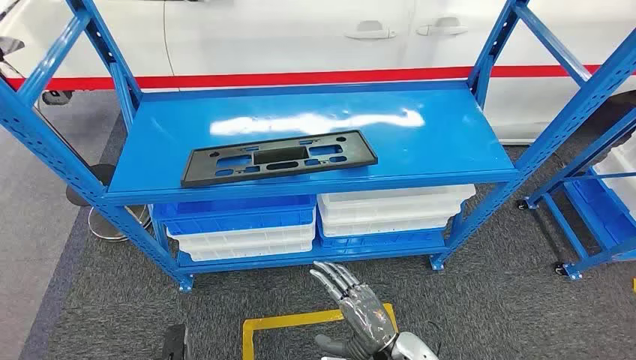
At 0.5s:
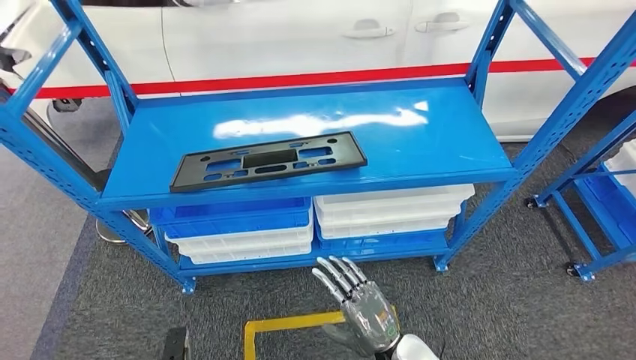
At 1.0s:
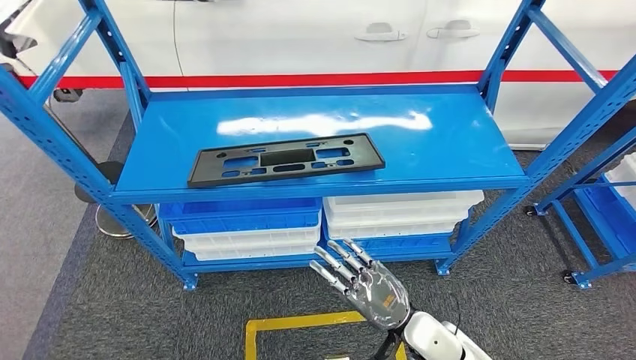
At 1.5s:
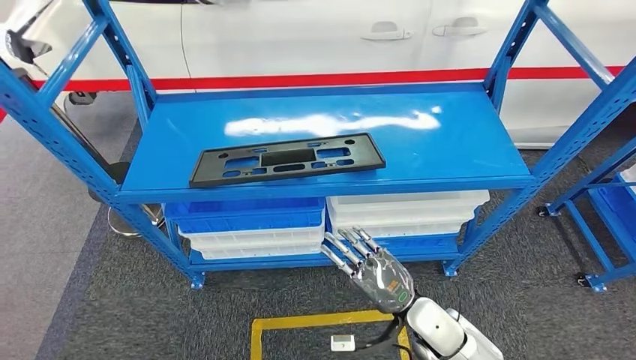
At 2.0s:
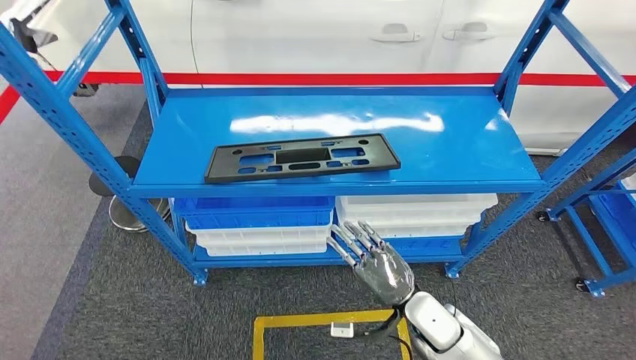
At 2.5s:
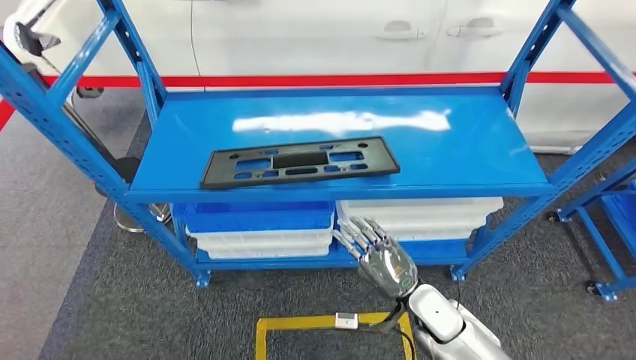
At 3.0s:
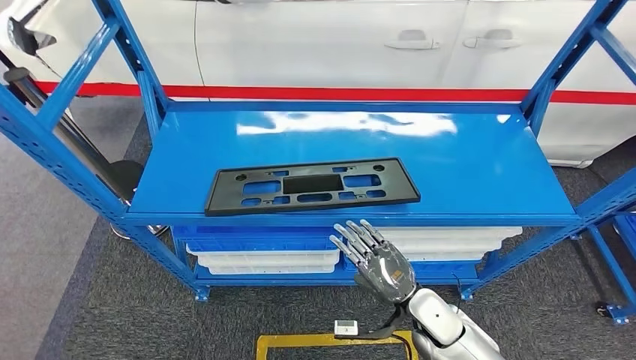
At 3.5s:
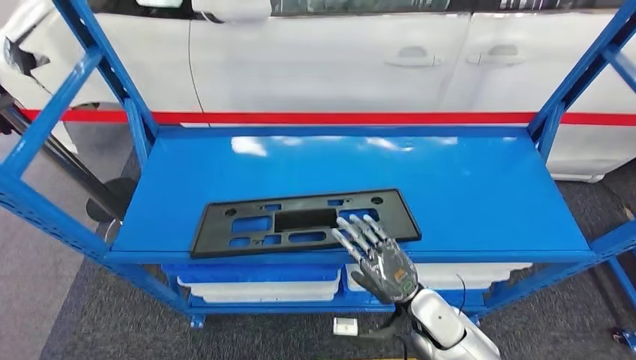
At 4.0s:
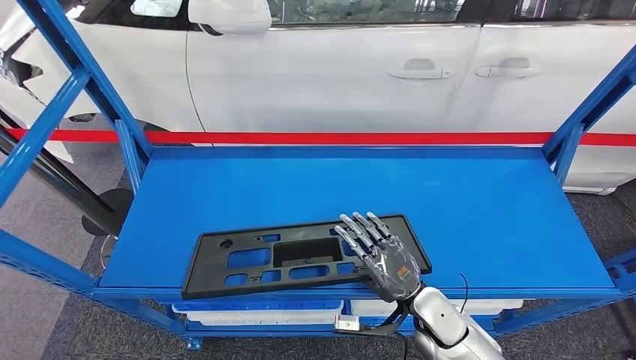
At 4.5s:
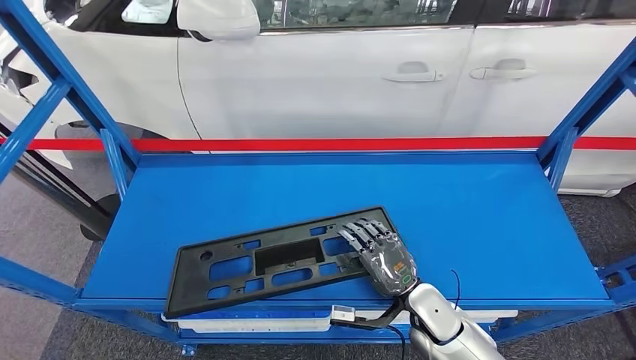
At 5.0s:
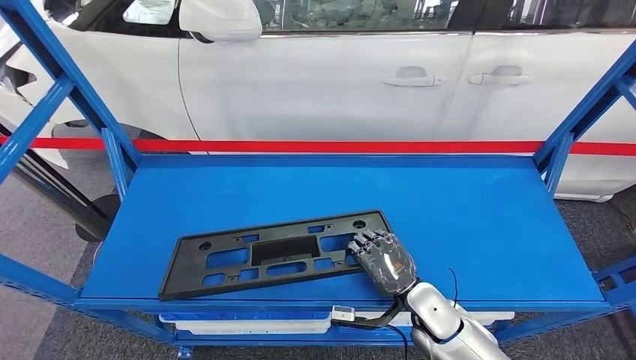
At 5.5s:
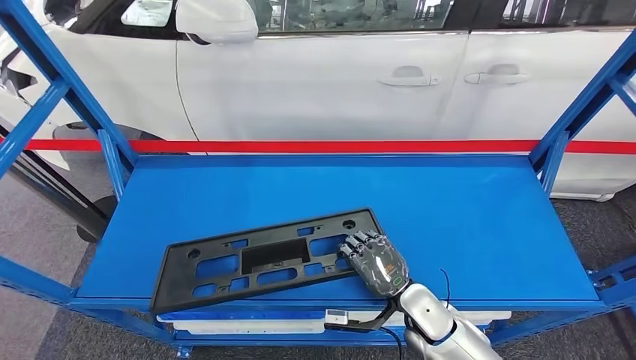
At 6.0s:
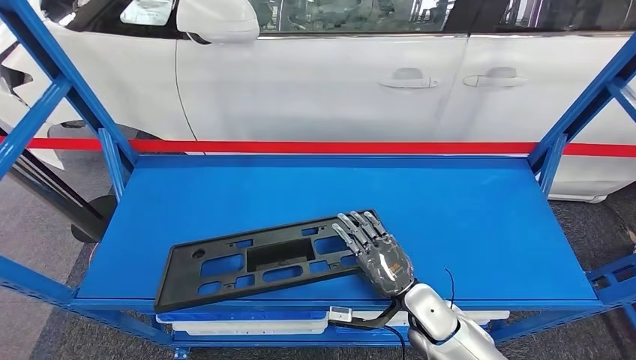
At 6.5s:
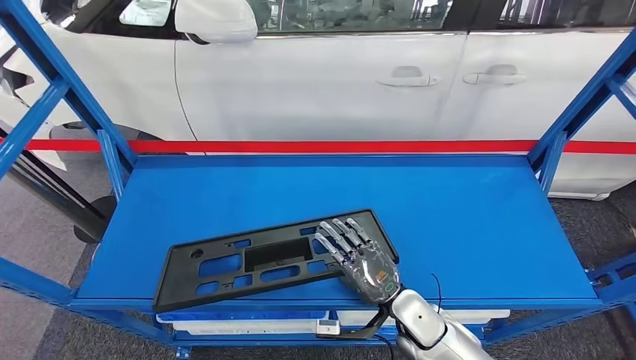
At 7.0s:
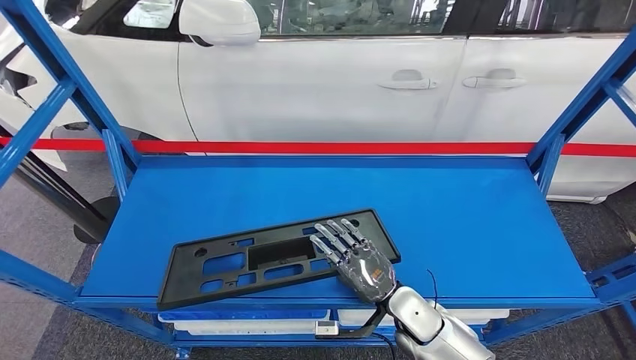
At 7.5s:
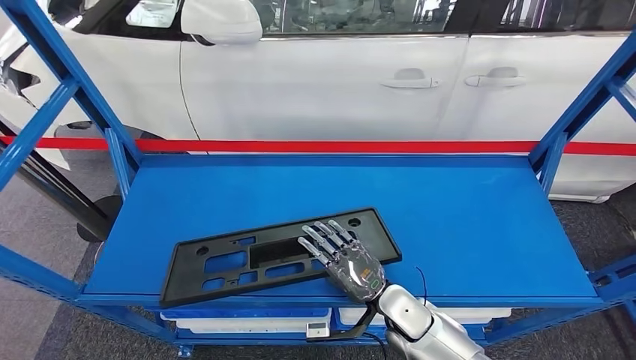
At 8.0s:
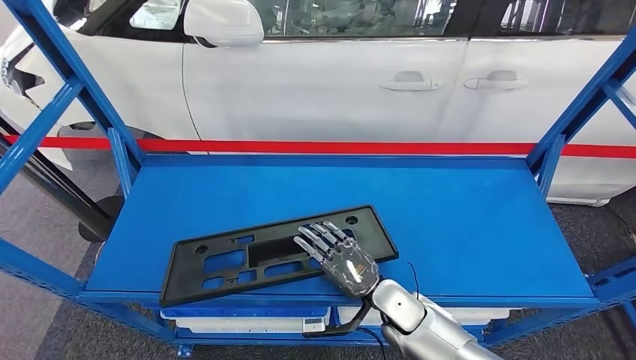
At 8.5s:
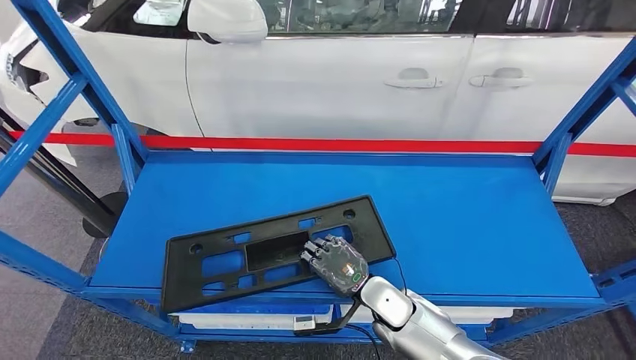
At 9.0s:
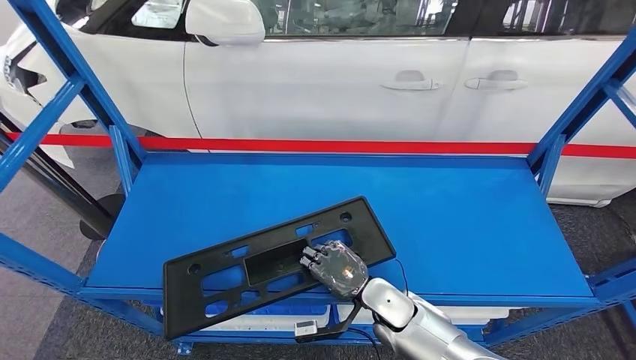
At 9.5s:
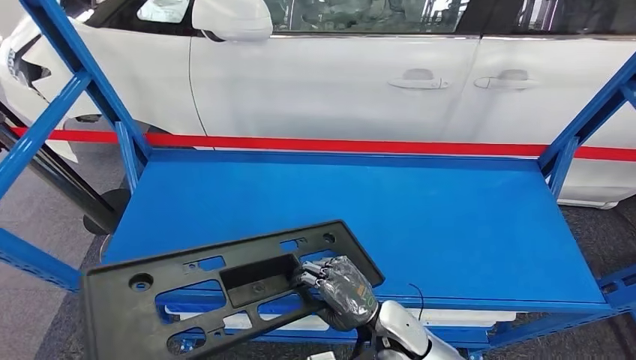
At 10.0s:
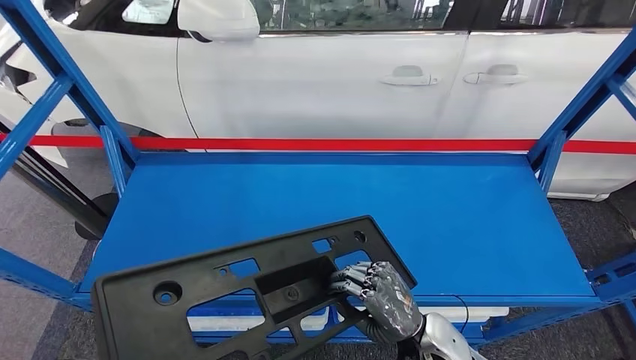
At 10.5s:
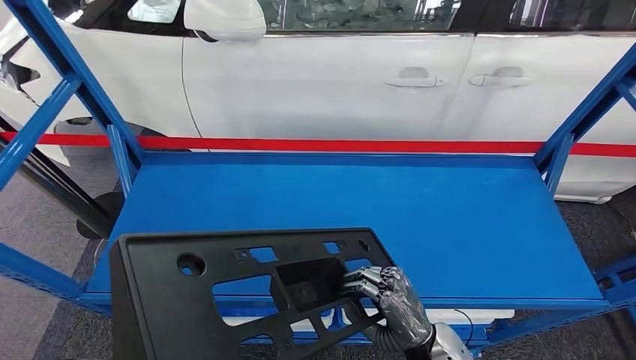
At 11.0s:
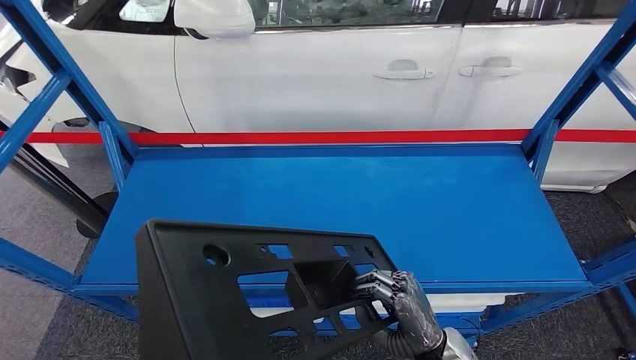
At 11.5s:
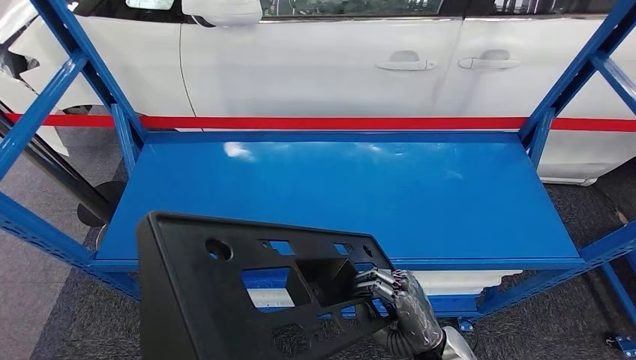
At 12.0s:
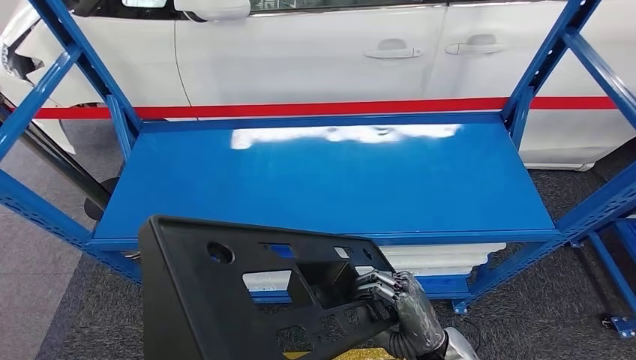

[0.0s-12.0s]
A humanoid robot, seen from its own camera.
Step, 0.0s to 11.5s: Pick up the large material from the shelf.

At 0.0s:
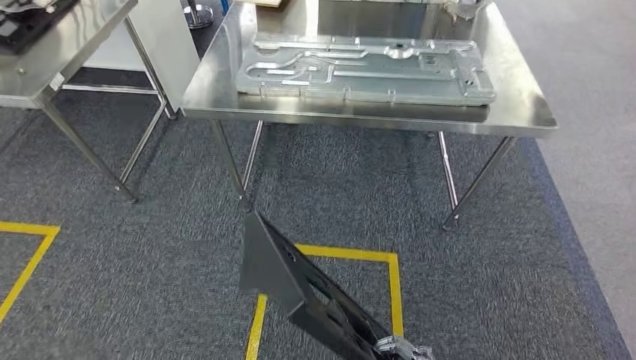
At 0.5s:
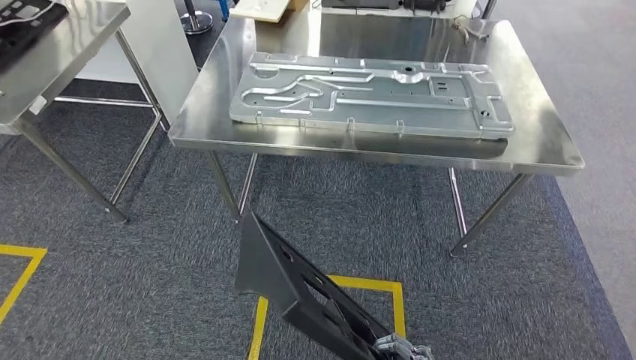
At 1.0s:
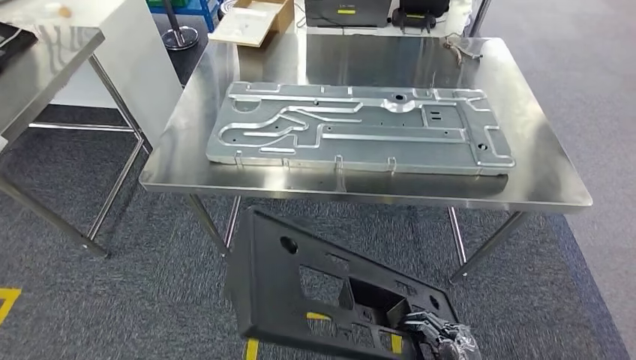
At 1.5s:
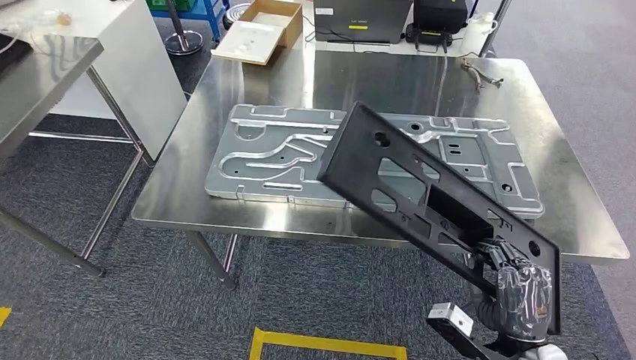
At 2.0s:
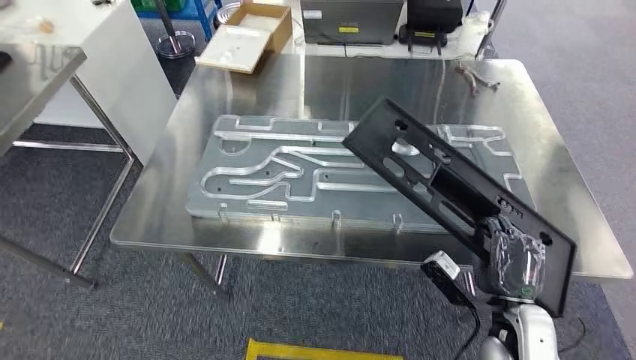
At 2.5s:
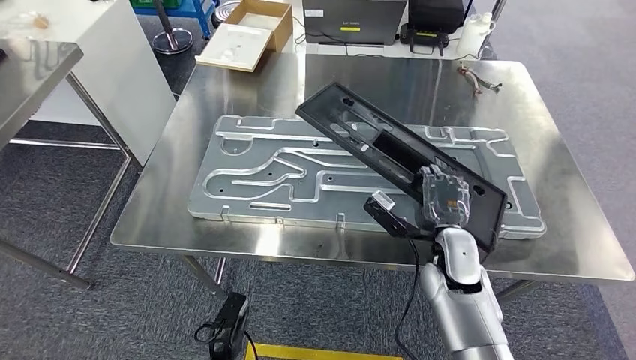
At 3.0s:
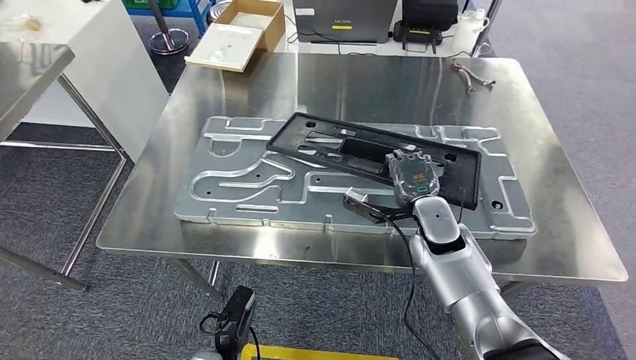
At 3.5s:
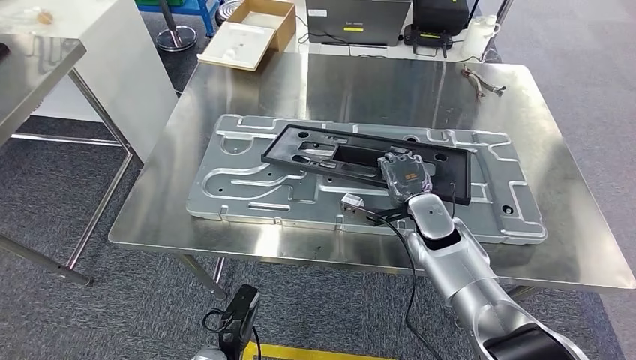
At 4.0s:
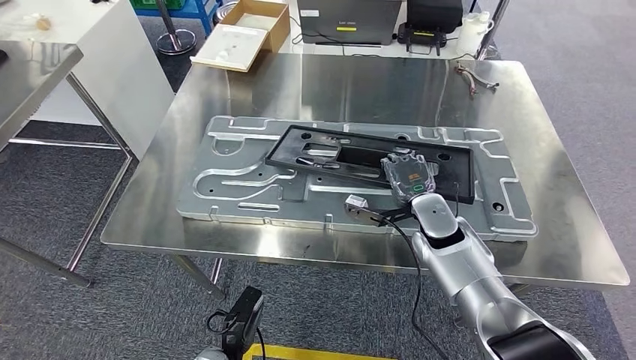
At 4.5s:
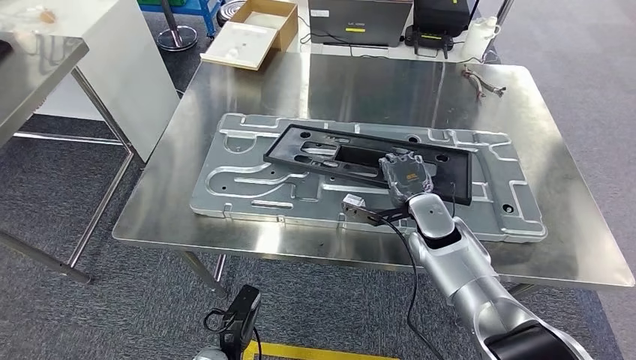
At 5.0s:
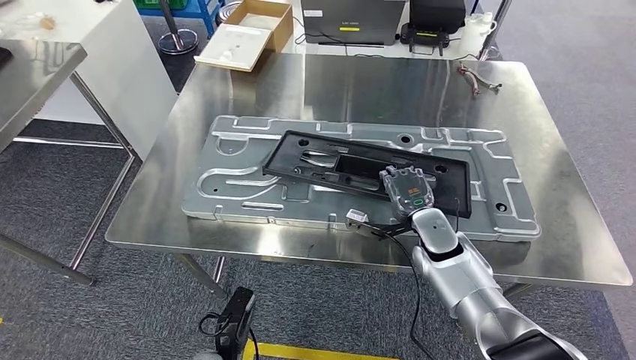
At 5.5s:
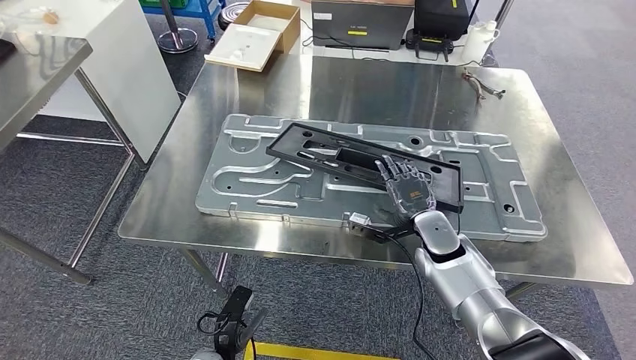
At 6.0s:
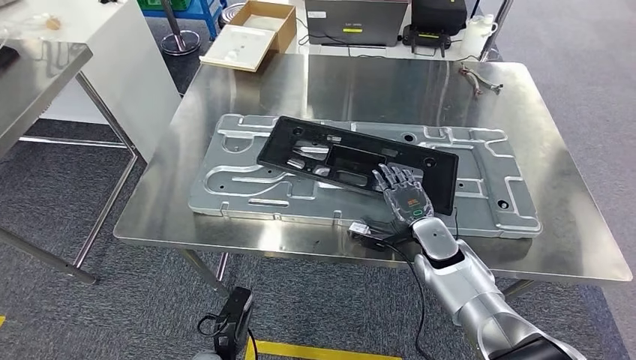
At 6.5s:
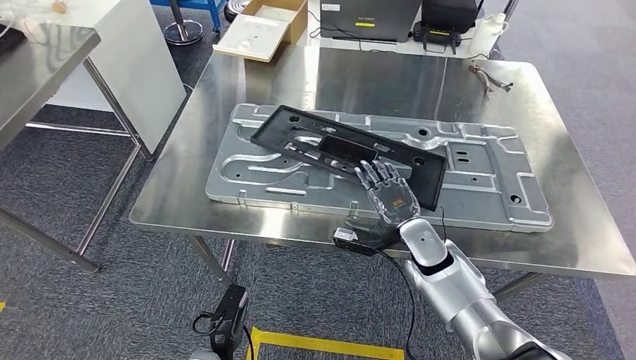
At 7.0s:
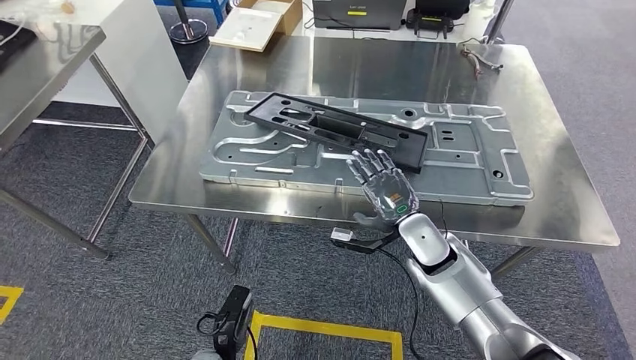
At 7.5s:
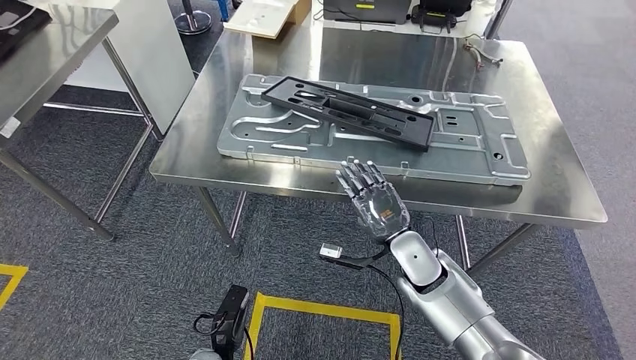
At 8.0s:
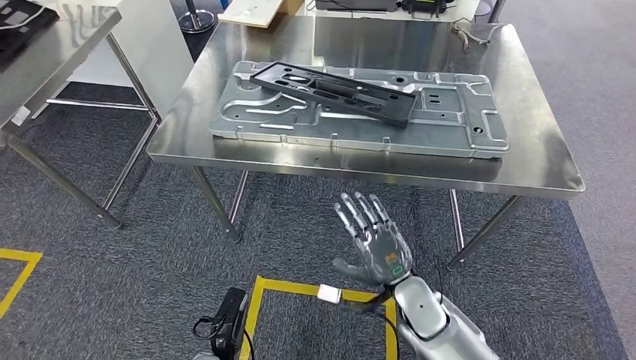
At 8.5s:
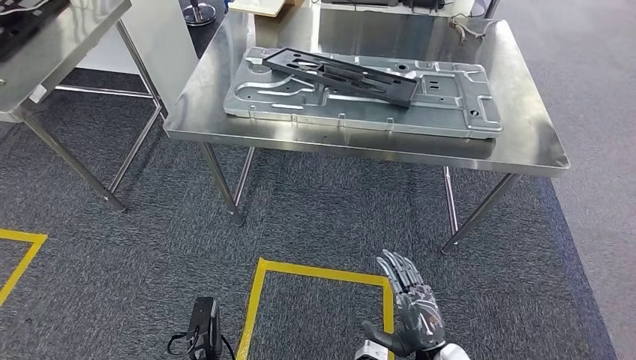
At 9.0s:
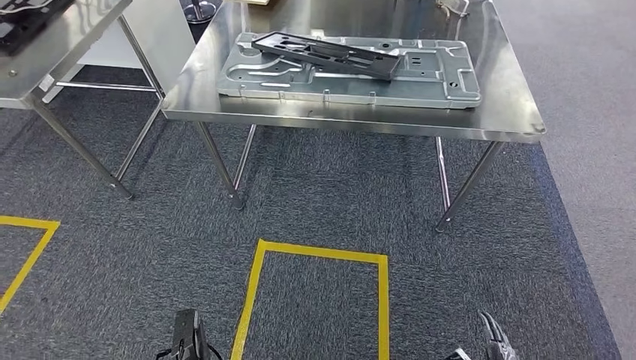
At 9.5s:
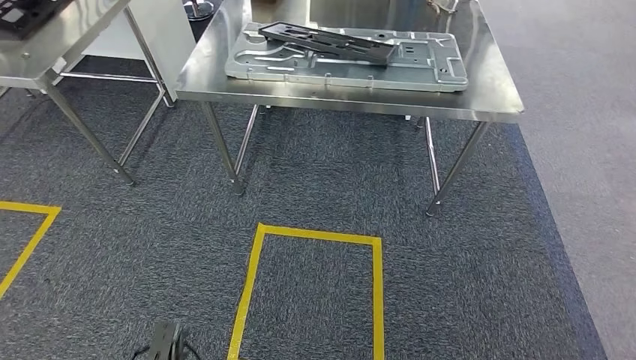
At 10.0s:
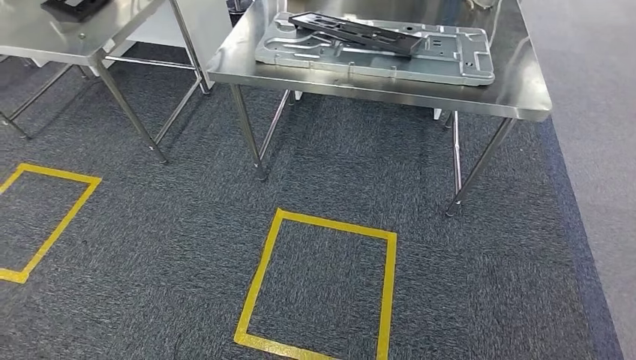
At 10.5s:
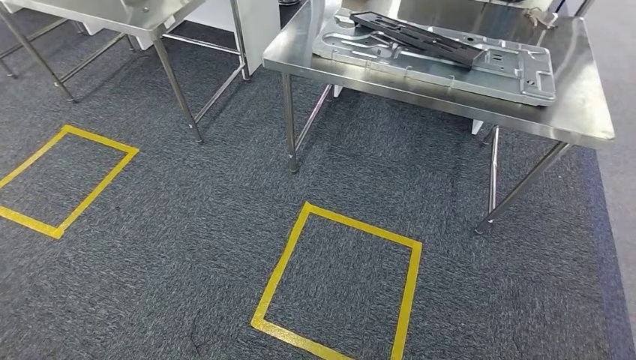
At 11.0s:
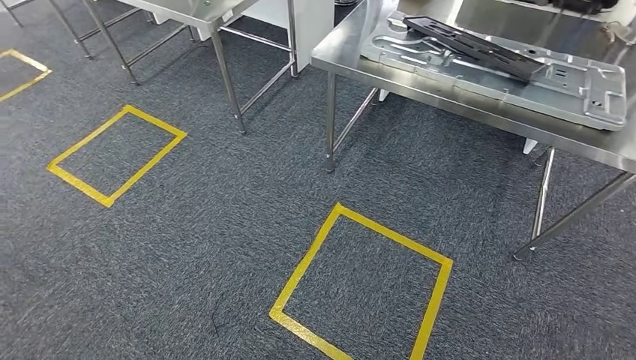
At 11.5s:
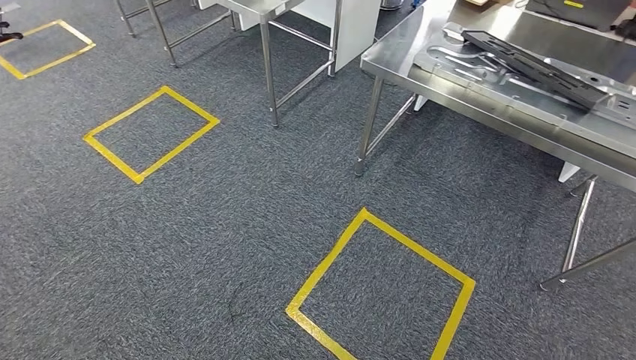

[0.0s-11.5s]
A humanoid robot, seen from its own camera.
Step, 1.5s to 10.5s: Insert the large material into the corresponding slot on the workbench.
